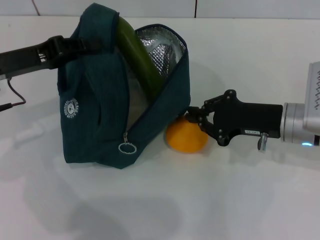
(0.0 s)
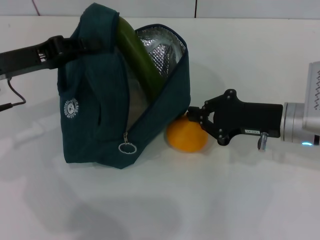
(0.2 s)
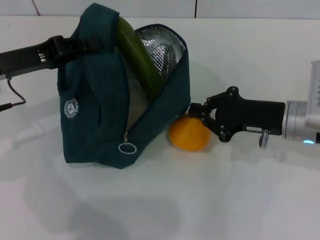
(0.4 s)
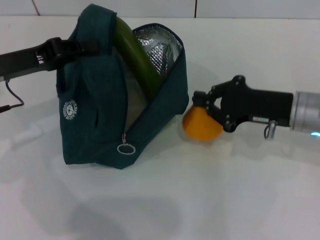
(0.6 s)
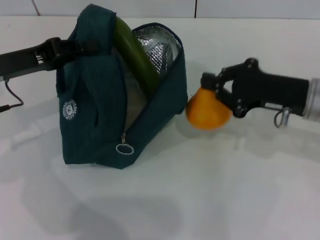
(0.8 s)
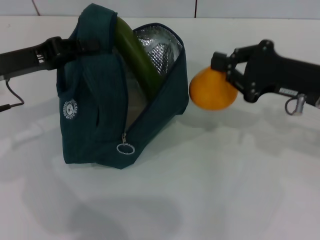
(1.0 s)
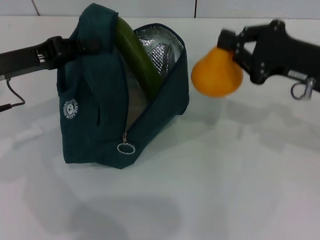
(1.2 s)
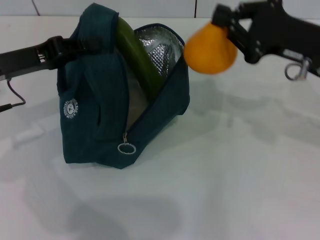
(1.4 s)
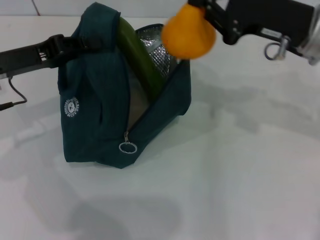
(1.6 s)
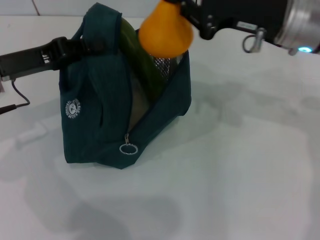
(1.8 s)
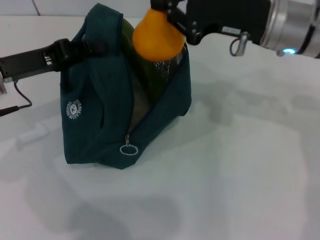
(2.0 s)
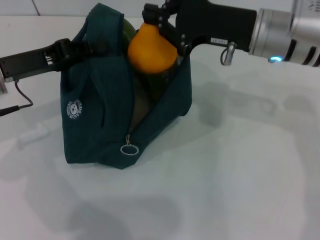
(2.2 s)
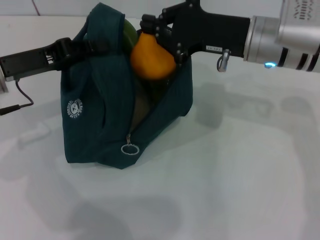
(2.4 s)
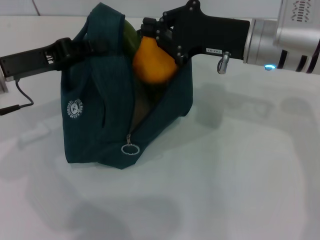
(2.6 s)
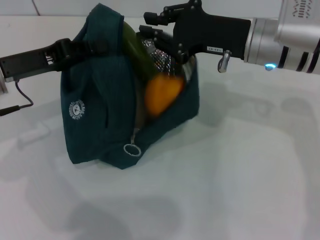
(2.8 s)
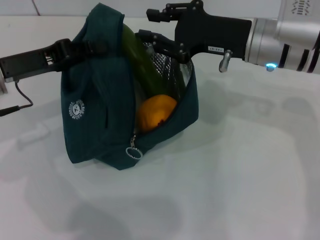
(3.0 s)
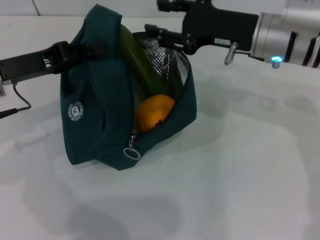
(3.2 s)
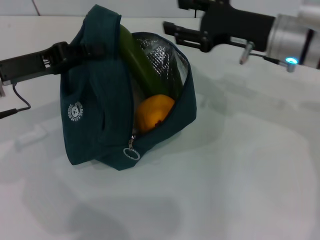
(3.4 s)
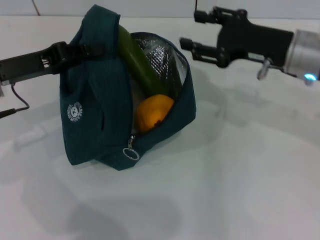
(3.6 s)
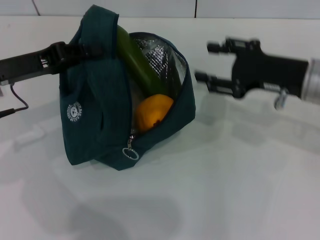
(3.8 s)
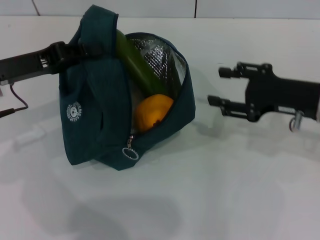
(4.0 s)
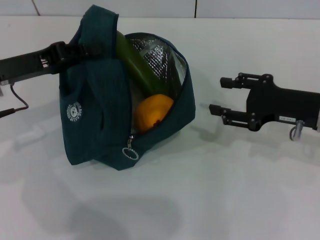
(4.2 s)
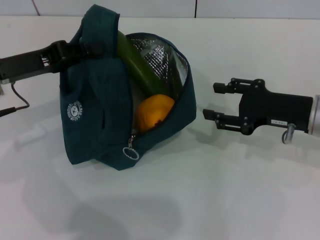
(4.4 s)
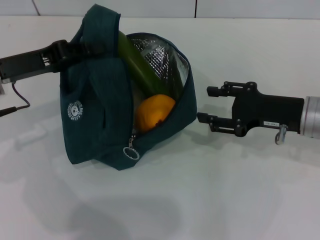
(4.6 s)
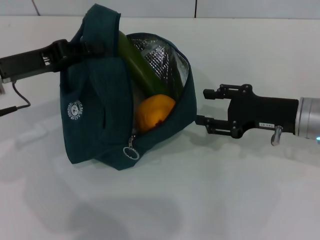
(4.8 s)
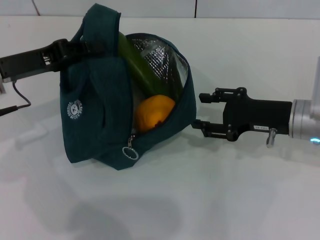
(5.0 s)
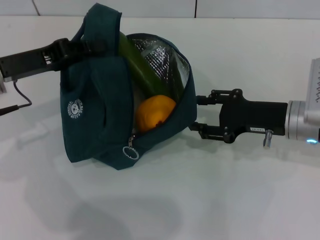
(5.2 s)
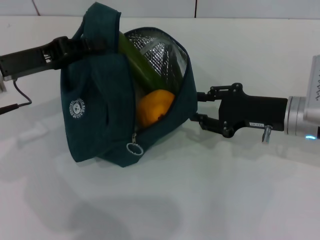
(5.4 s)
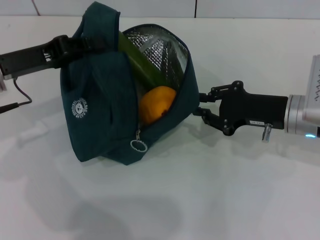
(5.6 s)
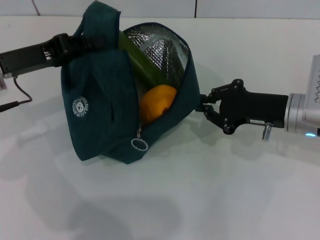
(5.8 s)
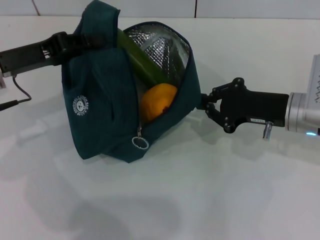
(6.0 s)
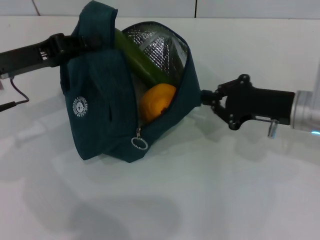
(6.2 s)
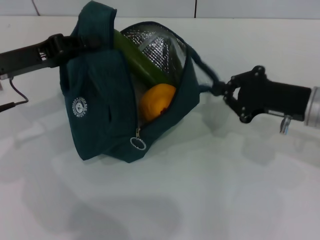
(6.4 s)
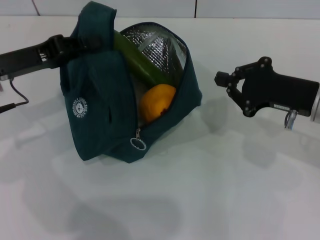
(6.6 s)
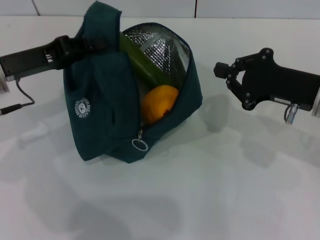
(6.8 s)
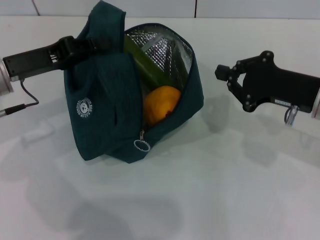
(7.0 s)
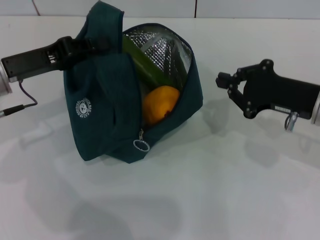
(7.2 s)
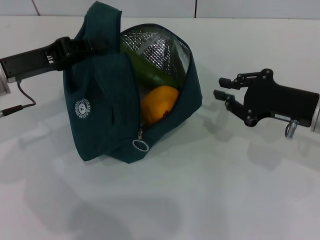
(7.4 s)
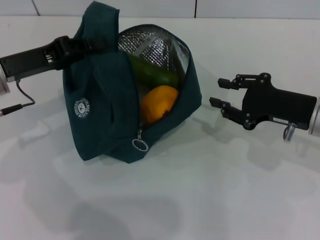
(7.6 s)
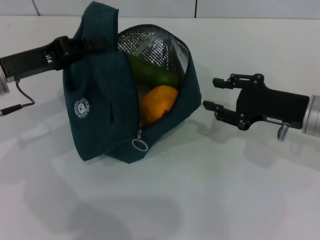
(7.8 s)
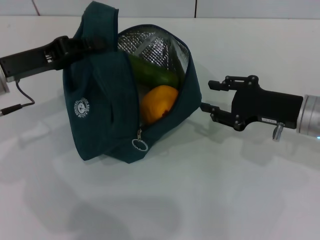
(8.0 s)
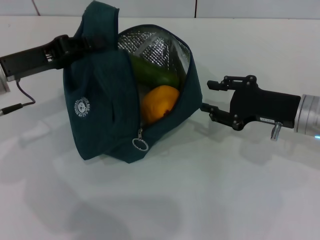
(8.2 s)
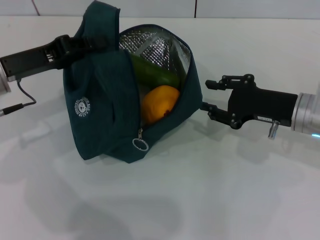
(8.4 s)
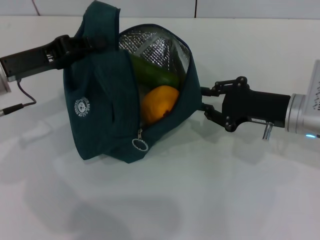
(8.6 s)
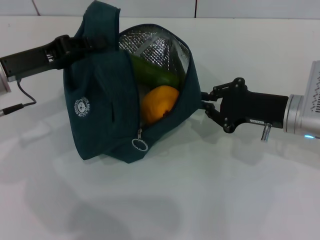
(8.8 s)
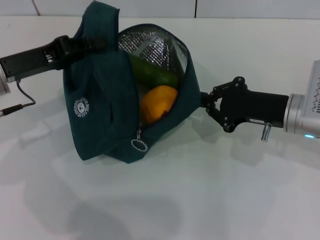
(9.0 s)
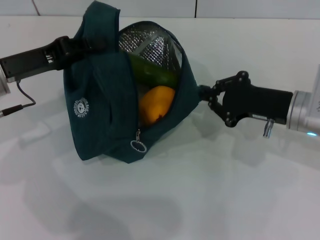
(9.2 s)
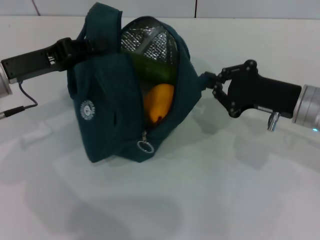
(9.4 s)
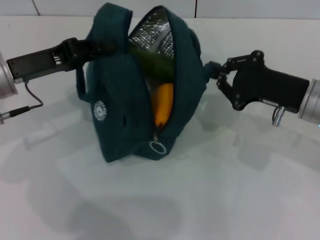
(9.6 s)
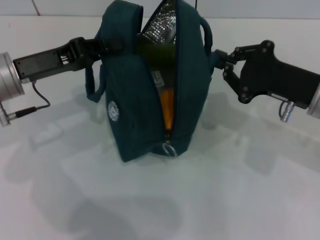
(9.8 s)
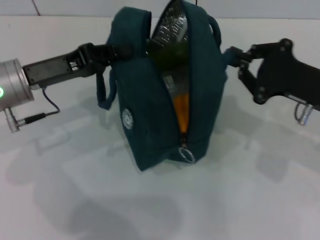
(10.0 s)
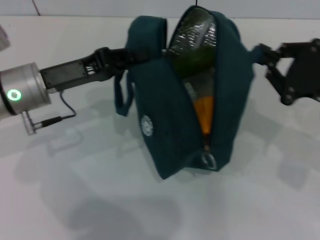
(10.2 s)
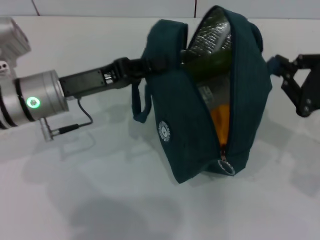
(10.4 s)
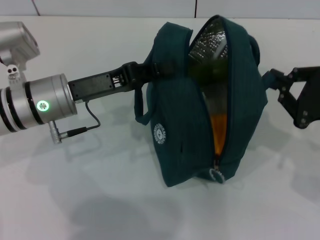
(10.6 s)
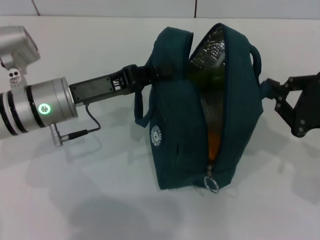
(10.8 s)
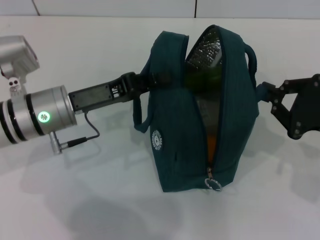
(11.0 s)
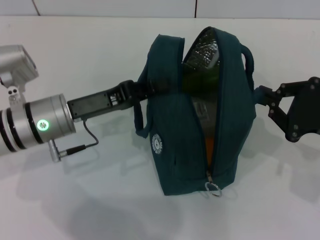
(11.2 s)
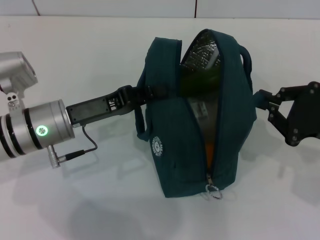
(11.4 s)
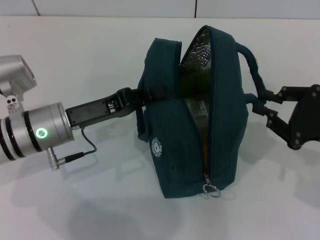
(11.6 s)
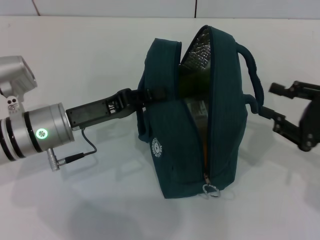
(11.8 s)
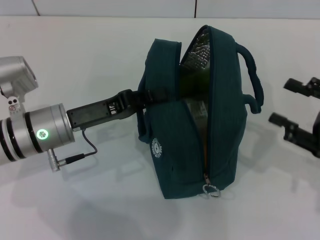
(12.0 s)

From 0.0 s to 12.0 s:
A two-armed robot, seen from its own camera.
Step, from 3.2 s to 11.6 s: Hold the lunch bag with your right hand.
From 0.0 s to 1.6 s: The right gripper is displaced upward by about 10 cm.
From 1.6 s to 3.0 s: The right gripper travels to the left by about 5 cm.
From 3.0 s to 4.4 s: The right gripper travels to the right, downward and backward by roughly 15 cm.
From 4.4 s to 6.0 s: The right gripper closes up.
From 6.0 s to 9.0 s: There are only small adjustments of the grippers.
From 9.0 s to 10.4 s: The left gripper shifts about 5 cm to the right, while the right gripper goes some 10 cm to the right and backward.

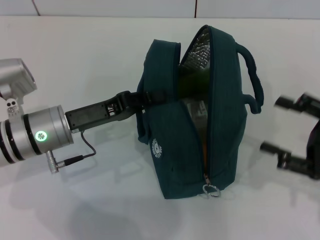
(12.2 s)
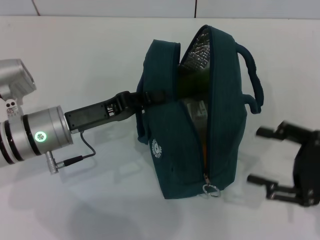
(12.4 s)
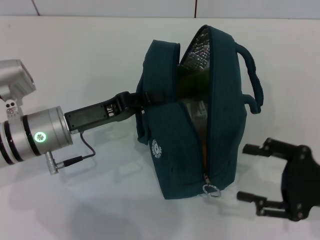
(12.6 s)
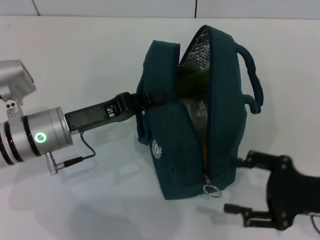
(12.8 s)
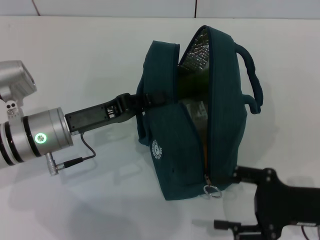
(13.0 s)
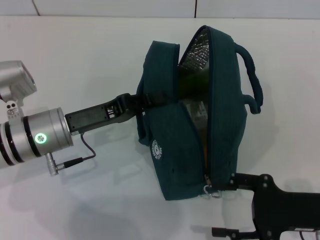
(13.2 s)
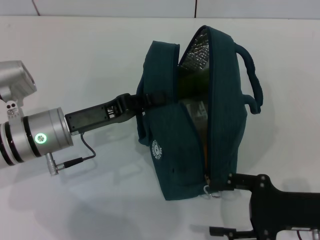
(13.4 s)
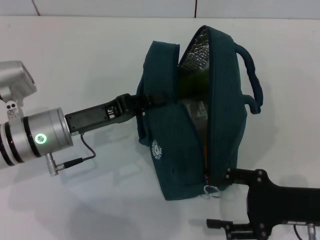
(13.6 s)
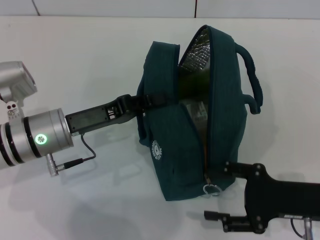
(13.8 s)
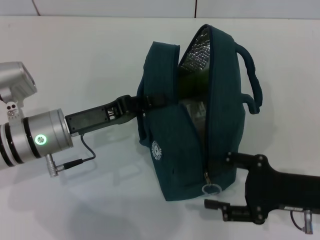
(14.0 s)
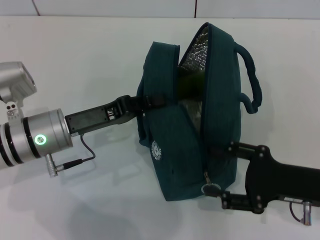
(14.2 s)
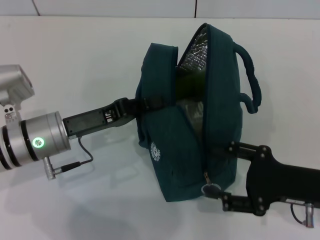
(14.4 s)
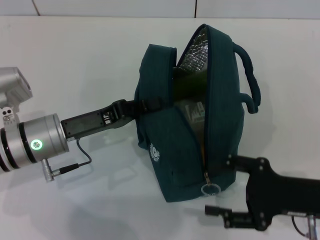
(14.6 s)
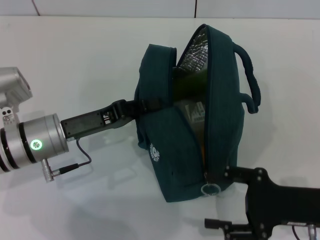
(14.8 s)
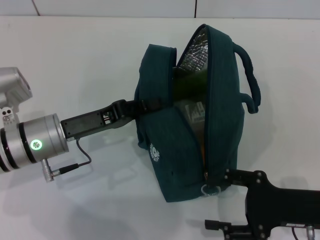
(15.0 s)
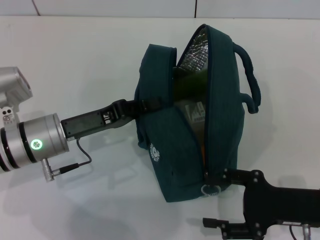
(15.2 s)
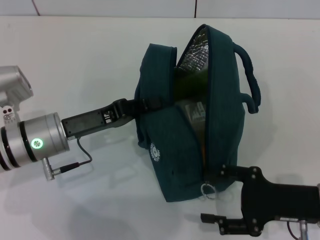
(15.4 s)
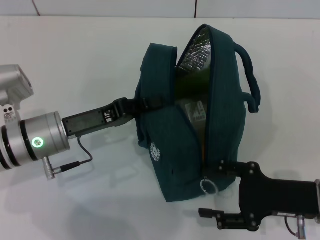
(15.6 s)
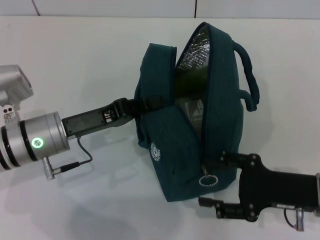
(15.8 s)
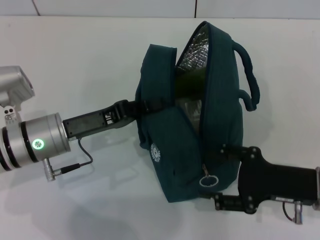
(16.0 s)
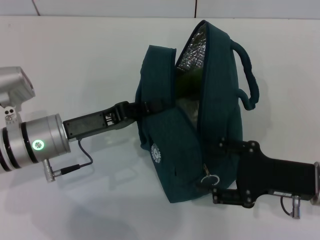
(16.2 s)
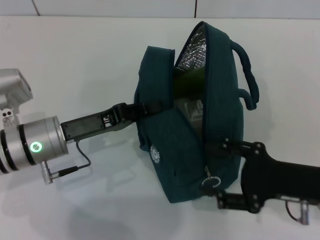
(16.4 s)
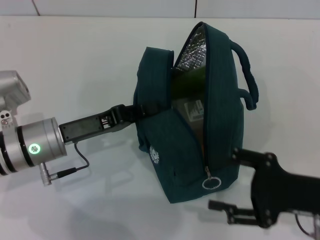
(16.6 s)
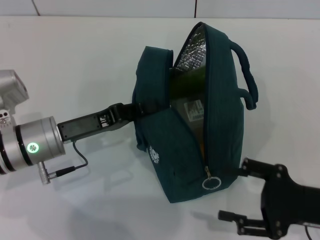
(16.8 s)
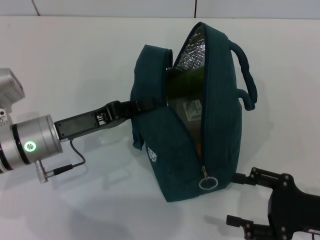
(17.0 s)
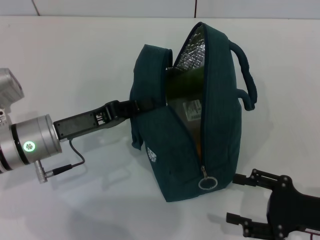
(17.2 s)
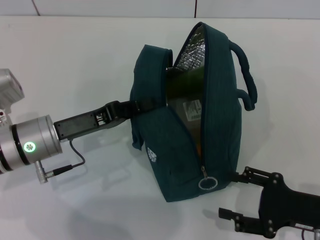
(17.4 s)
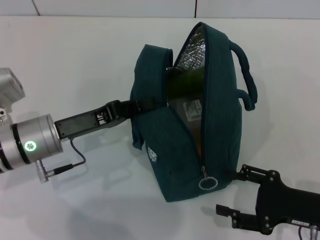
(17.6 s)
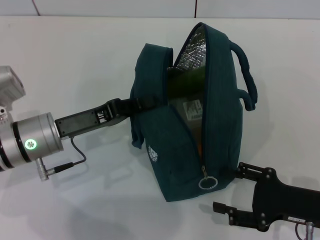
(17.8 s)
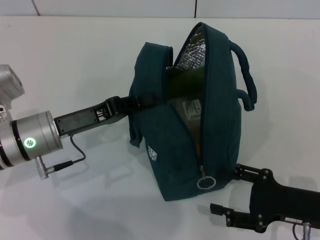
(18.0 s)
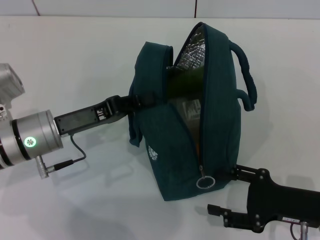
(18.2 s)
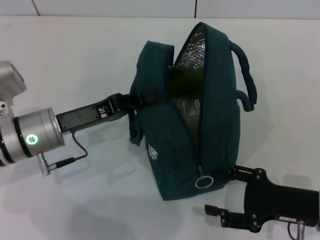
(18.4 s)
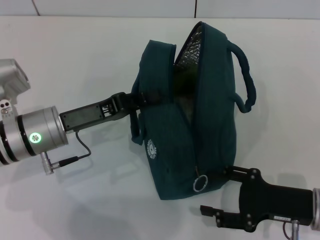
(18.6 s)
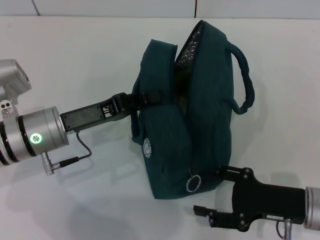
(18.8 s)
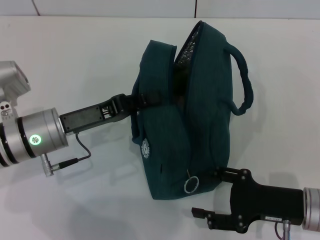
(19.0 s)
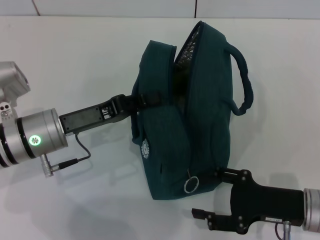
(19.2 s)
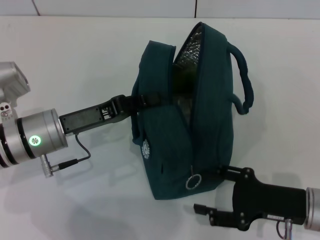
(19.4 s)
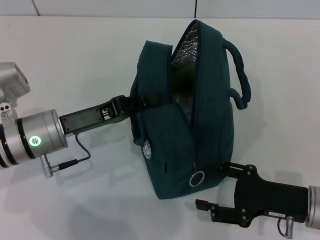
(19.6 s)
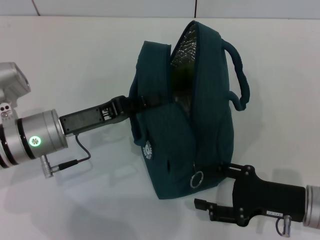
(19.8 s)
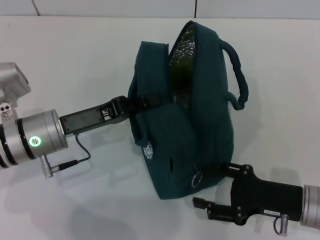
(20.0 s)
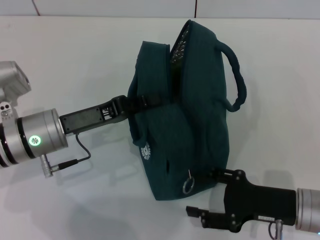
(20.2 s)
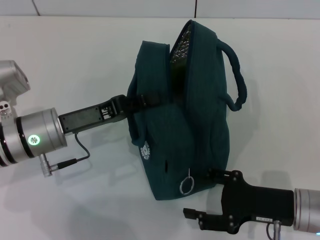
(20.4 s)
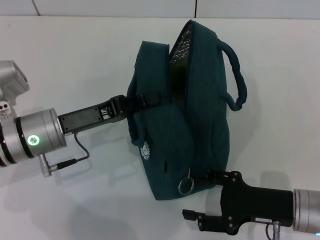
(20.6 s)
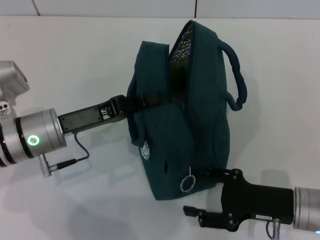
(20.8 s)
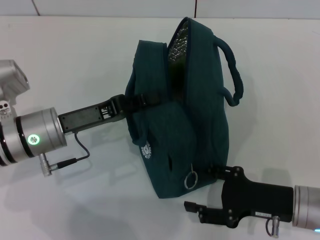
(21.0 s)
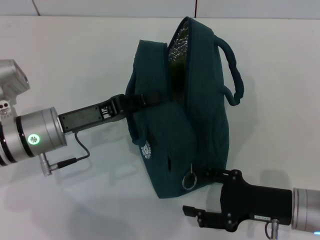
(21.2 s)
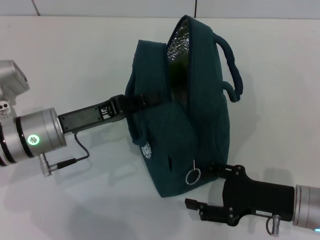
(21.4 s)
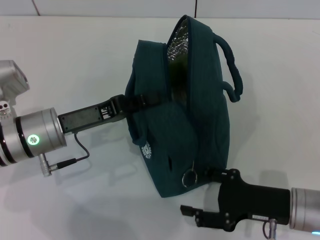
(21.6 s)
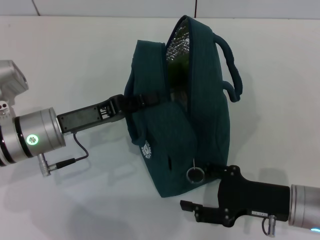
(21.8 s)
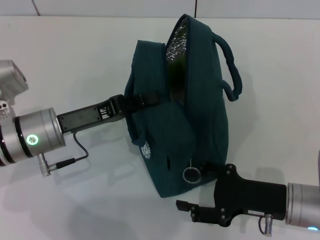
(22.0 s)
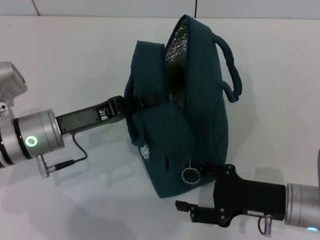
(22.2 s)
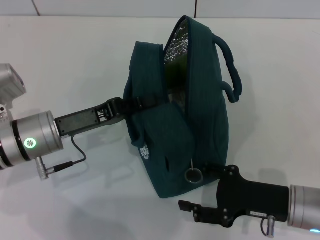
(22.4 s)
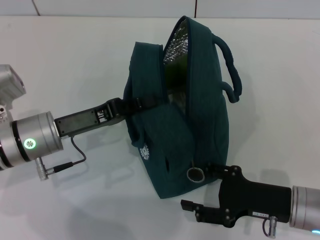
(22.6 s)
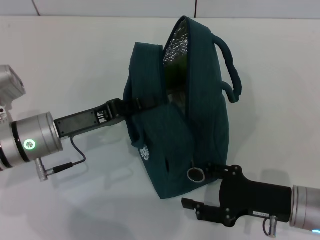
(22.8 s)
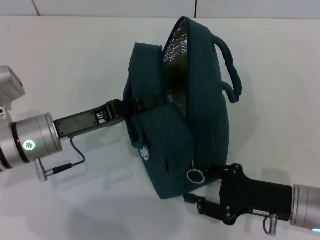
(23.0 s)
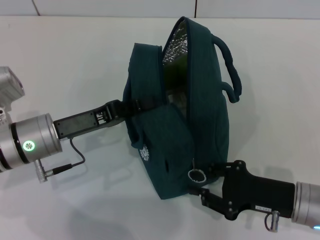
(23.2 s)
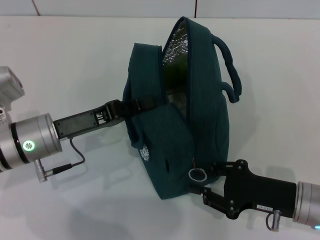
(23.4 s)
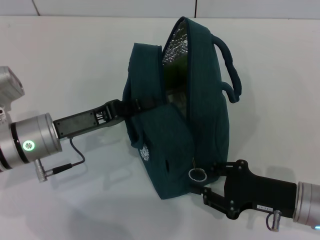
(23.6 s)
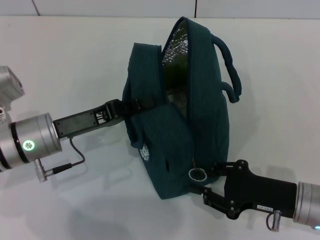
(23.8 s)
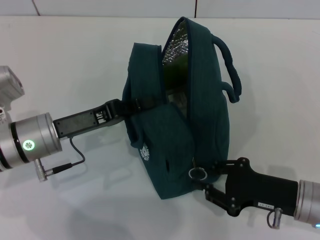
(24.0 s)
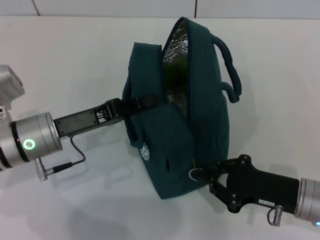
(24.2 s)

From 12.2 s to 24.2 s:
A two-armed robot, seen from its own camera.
From 12.2 s to 13.8 s: The right gripper heads to the left, covering about 5 cm.
From 13.8 s to 21.2 s: There are only small adjustments of the grippers.
From 21.2 s to 22.6 s: Both grippers stay about where they are.
From 22.6 s to 24.2 s: The right gripper closes.
